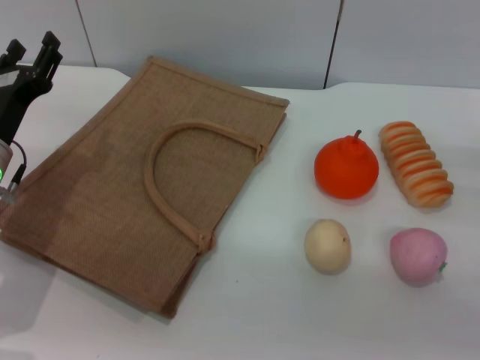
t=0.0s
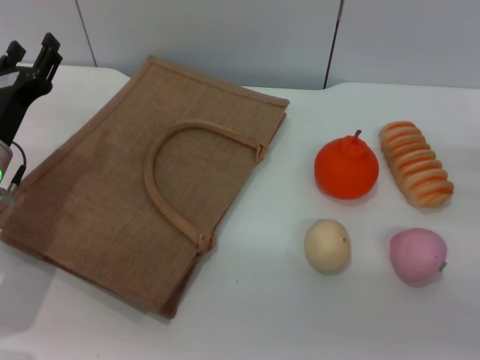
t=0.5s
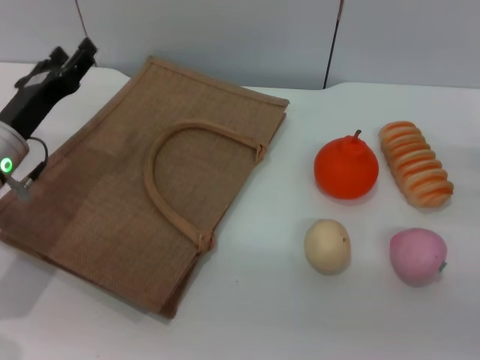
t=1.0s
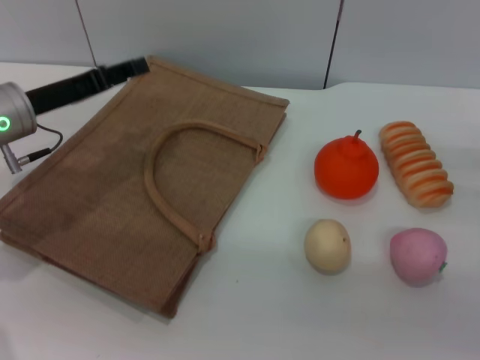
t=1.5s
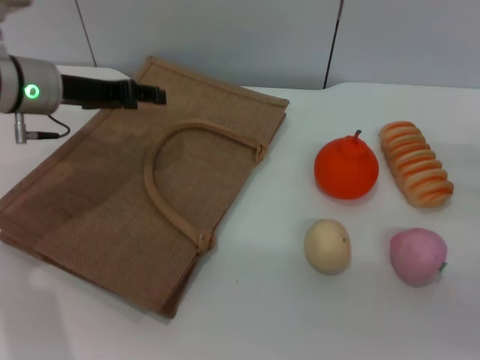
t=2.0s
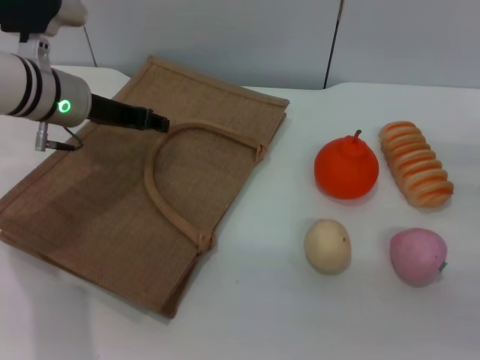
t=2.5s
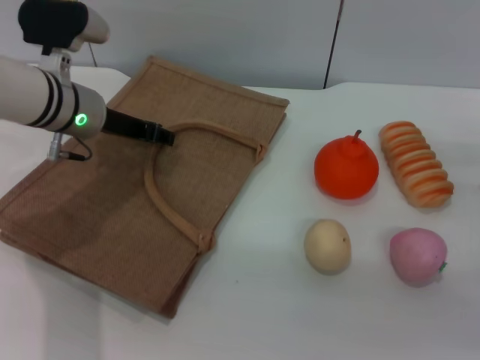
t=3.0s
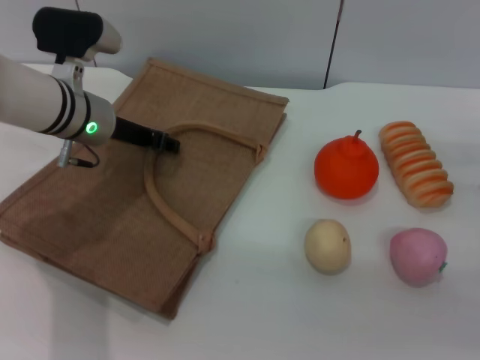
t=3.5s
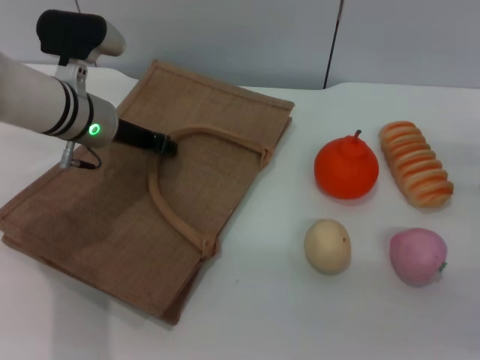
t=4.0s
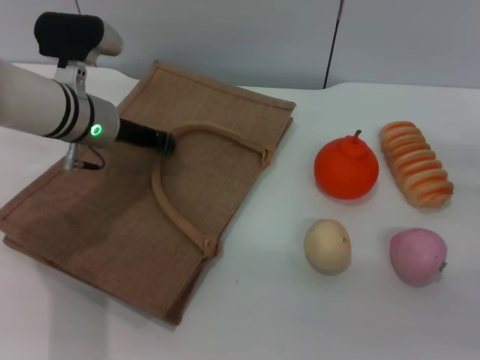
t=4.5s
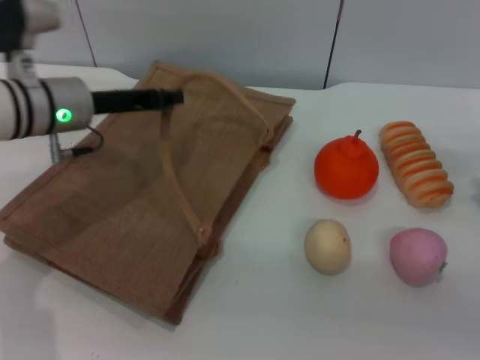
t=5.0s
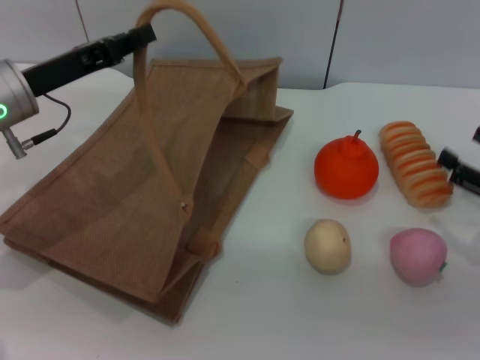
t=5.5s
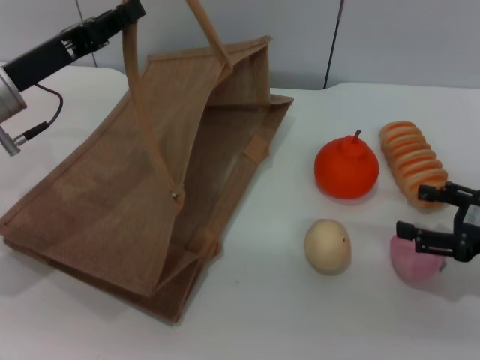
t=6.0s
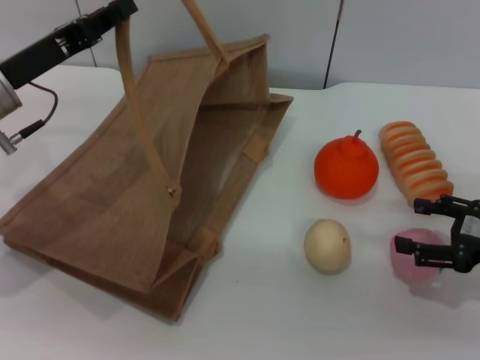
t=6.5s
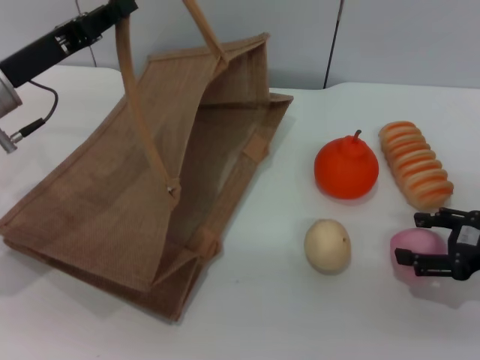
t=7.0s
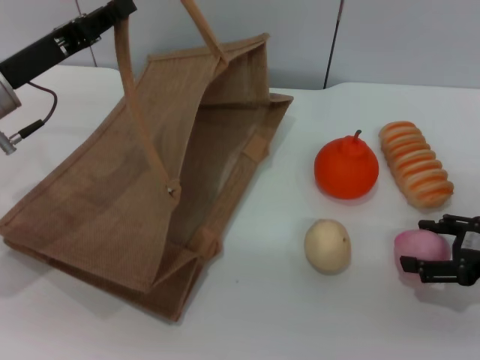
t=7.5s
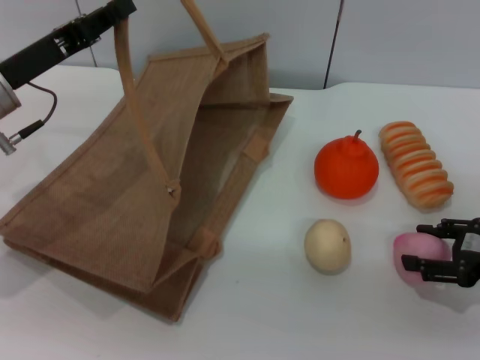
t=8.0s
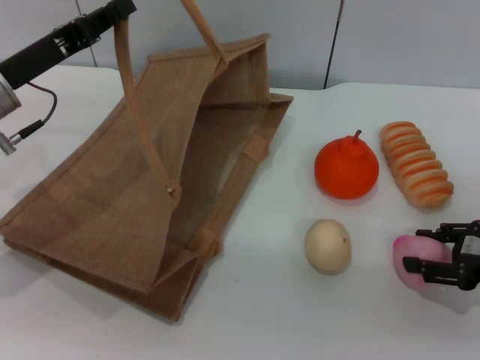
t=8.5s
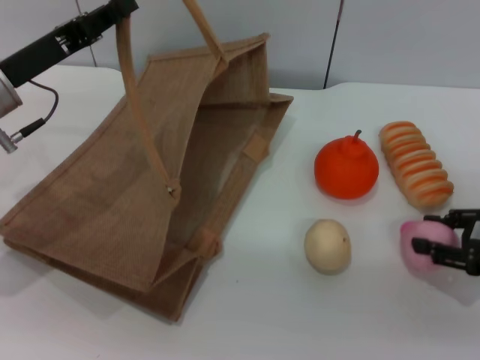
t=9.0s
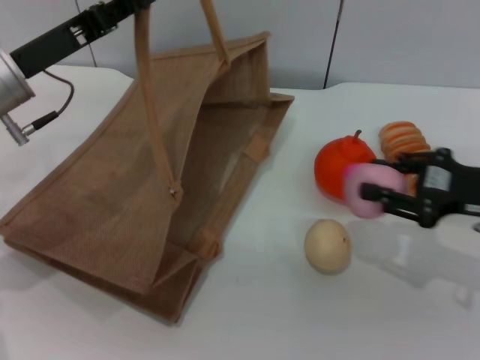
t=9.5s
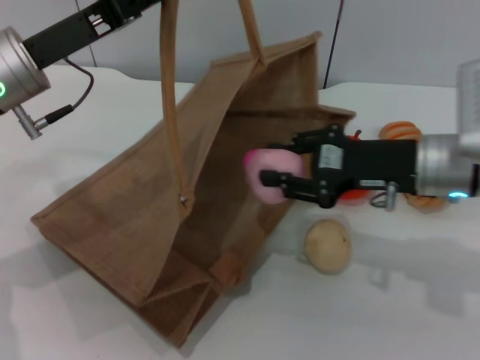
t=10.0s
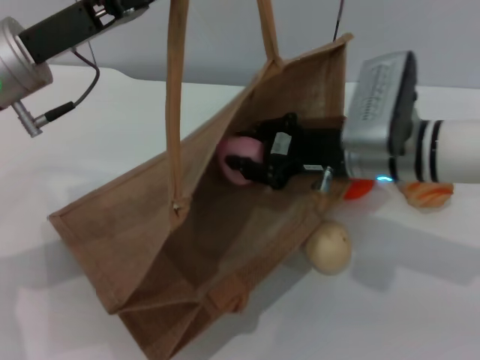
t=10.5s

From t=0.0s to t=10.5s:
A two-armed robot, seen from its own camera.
Task of the whole recording: pick up the peach from the table and place it in the brown handbag.
Step, from t=0.0s to t=5.0s: Lift the woven bag with the left gripper to open it.
Step, from t=5.5s to t=9.0s: Pick up the peach with the right gripper.
From t=0.0s to t=2.0s: The left gripper shifts some 10 cm forward and upward.
From t=2.0s to t=4.0s: The left gripper goes some 5 cm to the right.
From t=4.0s to t=6.5s: The left gripper is displaced to the left and backward by some 10 cm, and closes.
From t=6.5s to t=8.5s: The right gripper closes its fingers.
From t=8.5s to t=10.5s: The left gripper changes place by some 5 cm. The right gripper heads to the left and forward, covering about 20 cm, and closes its fingers.

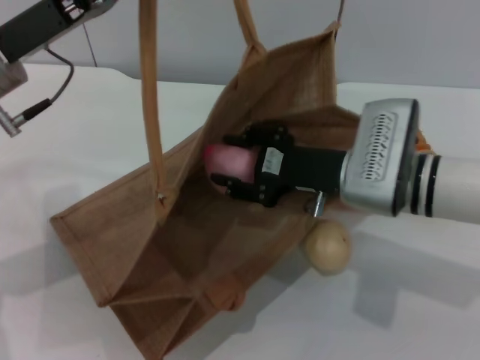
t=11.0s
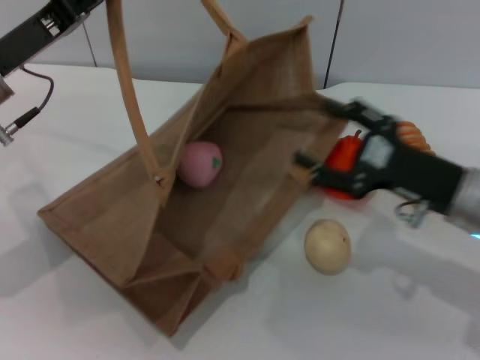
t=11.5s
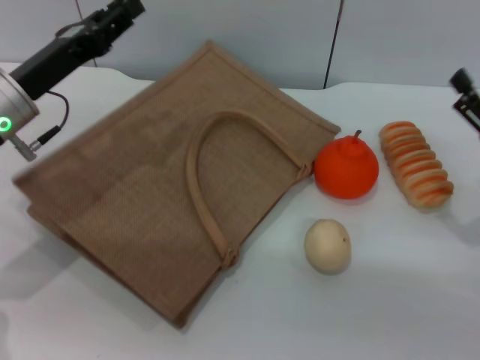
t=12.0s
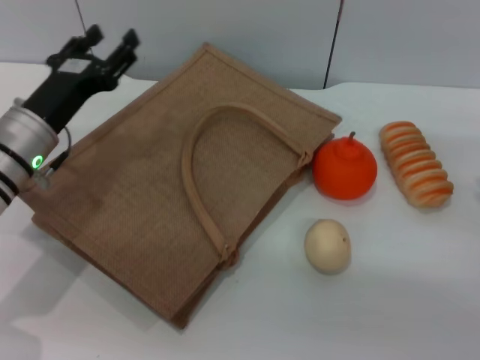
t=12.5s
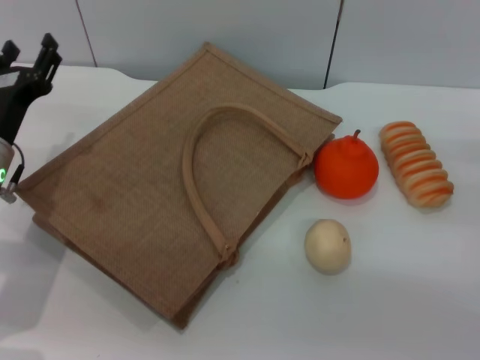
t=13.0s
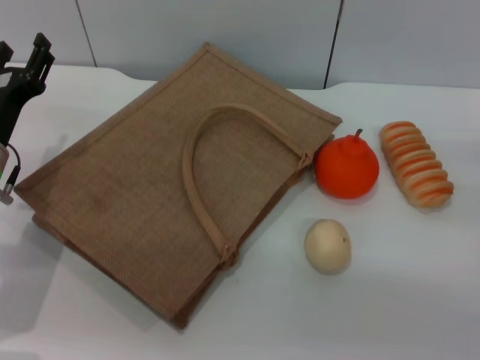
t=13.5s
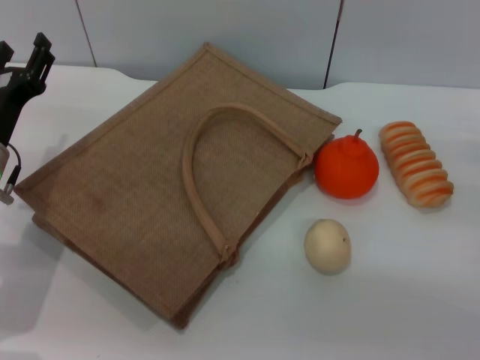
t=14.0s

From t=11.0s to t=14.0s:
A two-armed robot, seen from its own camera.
Task of the whole recording: pick up the peach from the table and place it in the brown handbag.
Step, from t=12.0s to t=12.5s: Lower the woven bag with the left gripper to close it.
From t=11.0s to t=12.5s: The left gripper goes approximately 10 cm downward, and opens. The right gripper is displaced to the right by some 20 cm, and opens its fingers.
From t=12.5s to t=14.0s: The grippers stay close to where they were, moving slightly.

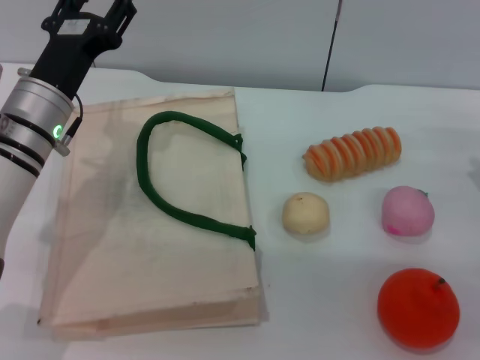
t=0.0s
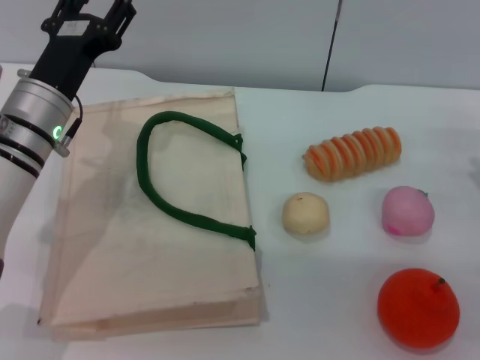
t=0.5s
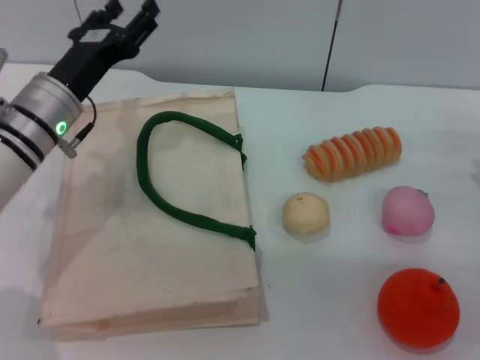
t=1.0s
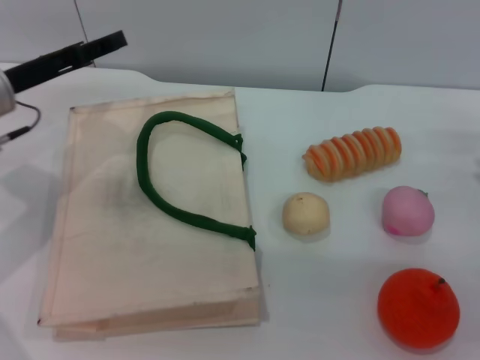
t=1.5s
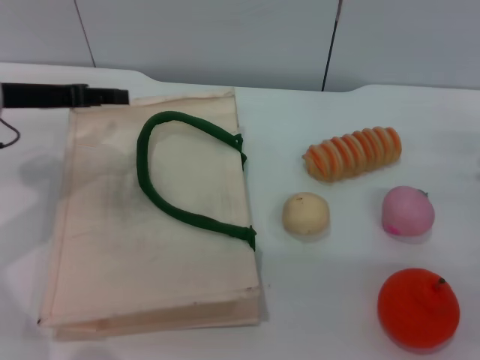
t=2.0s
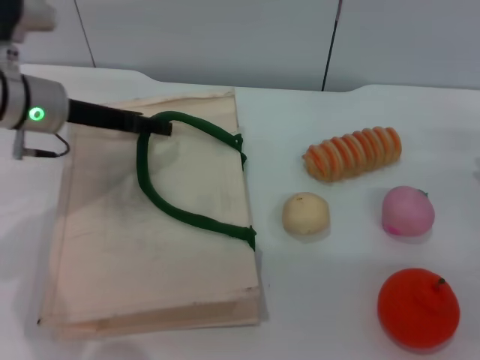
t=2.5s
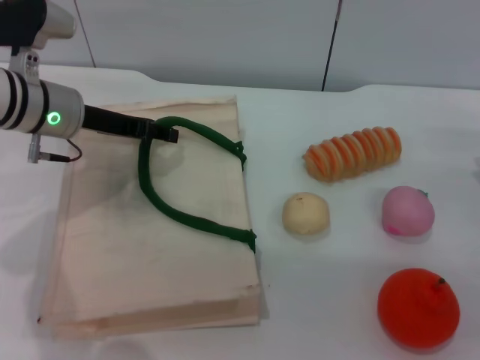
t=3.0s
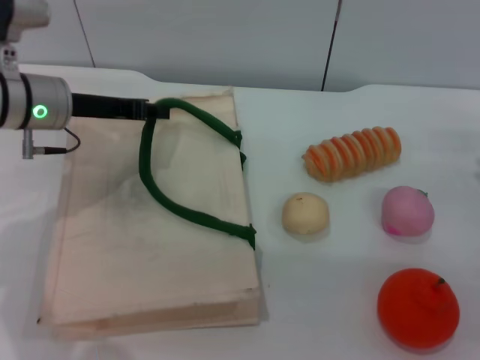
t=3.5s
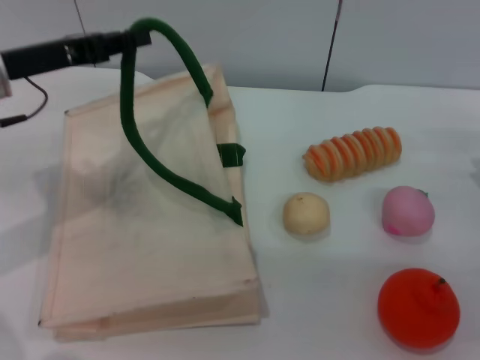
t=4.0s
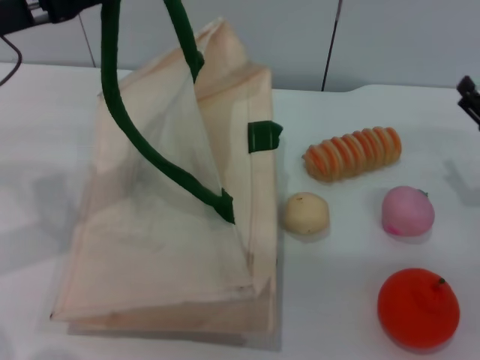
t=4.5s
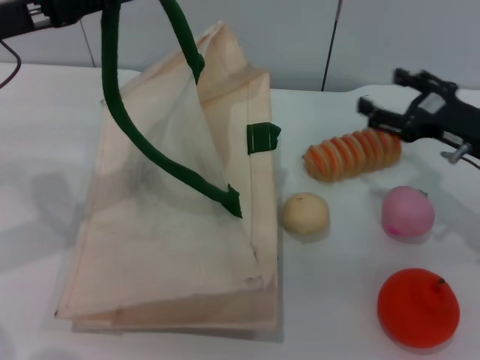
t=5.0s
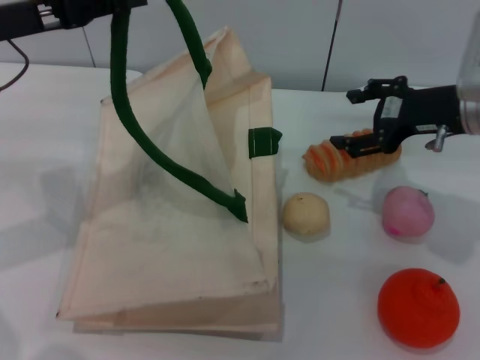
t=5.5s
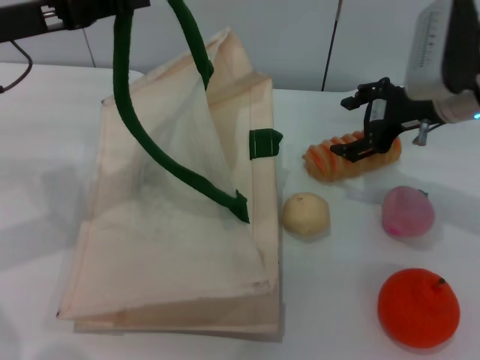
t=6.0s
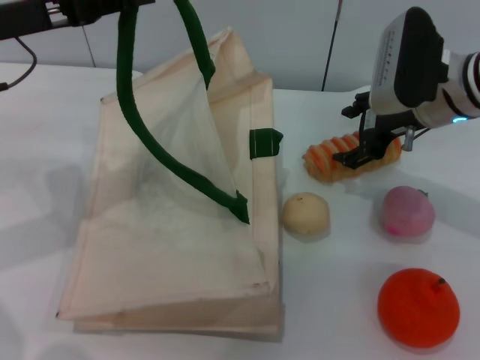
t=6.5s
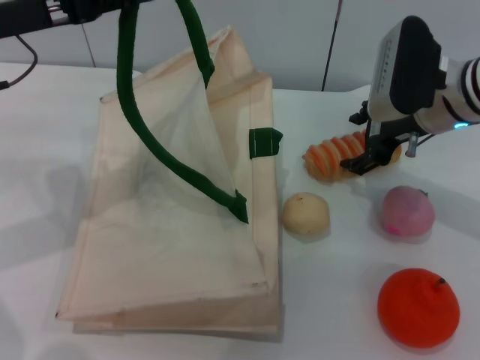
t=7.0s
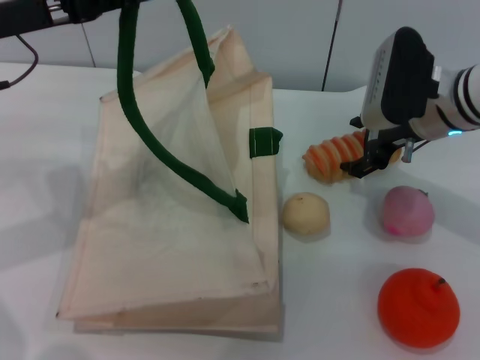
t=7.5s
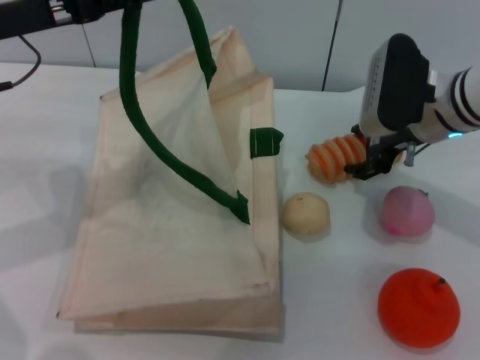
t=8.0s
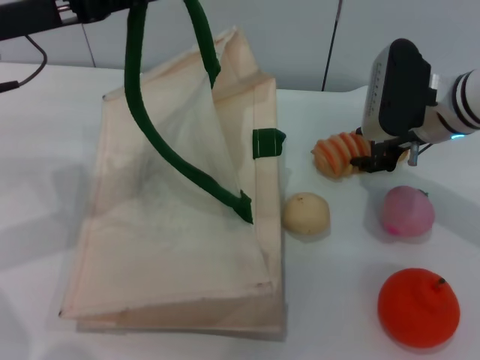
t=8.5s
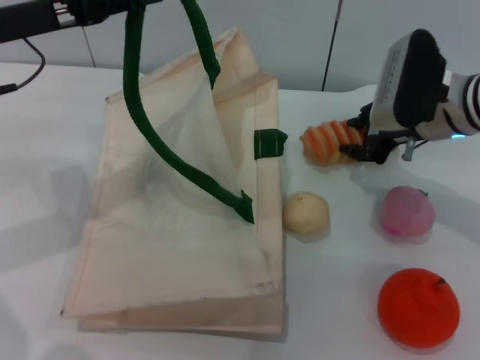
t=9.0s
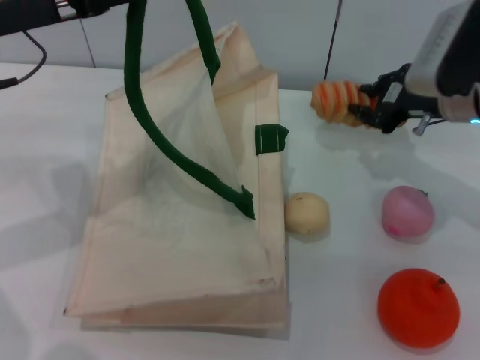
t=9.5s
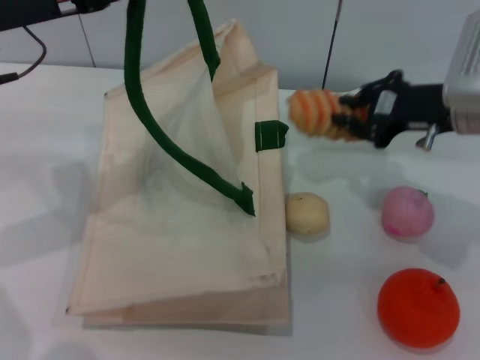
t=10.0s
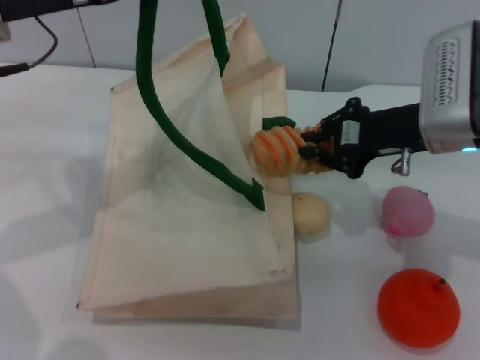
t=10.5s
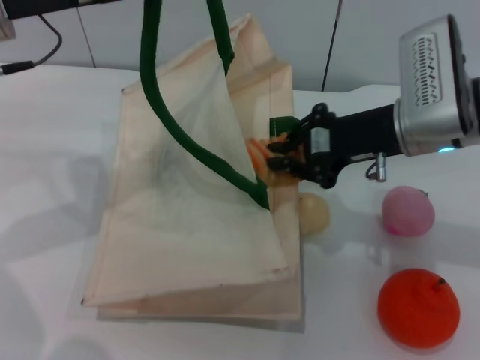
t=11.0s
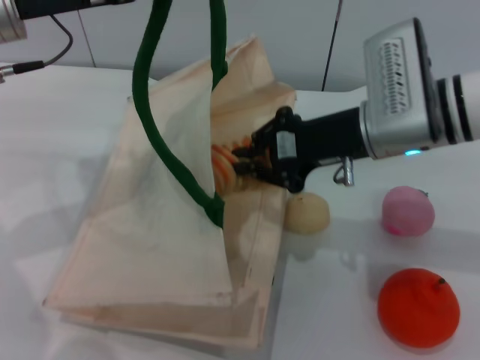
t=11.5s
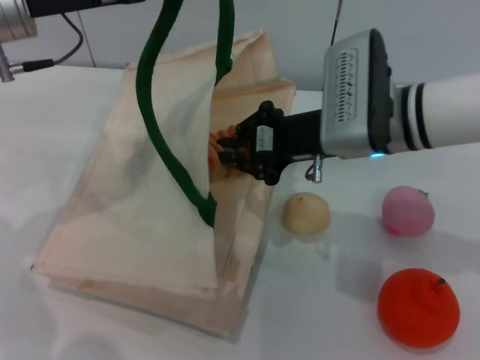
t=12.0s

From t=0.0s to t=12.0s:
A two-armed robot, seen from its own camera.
Task of the whole recording: pick up the bread from the table and place it in the white handbag.
Step, from t=0.0s to t=4.5s: Lift the woven bag with the left gripper to open it.
Step, from t=5.0s to t=9.0s: Pick up the bread with the right gripper.
From t=0.0s to t=2.0s: The left gripper heads to the left and upward, covering approximately 10 cm.
From t=2.0s to t=4.0s: The left gripper closes its fingers.
From t=4.0s to t=6.0s: The right gripper travels to the left, forward and upward by roughly 20 cm.
From t=6.0s to t=8.0s: The grippers make only small movements.
From t=8.0s to t=10.0s: The right gripper shifts by roughly 5 cm, and closes up.
From t=10.0s to t=12.0s: The right gripper shifts approximately 10 cm to the left.
